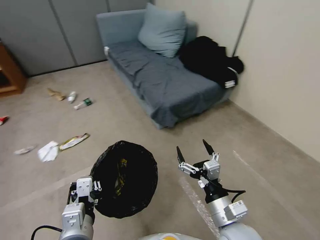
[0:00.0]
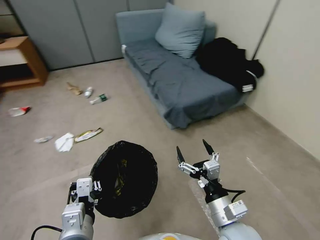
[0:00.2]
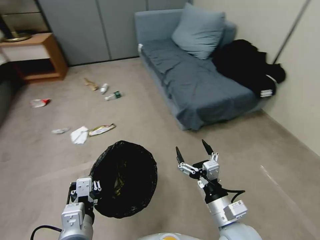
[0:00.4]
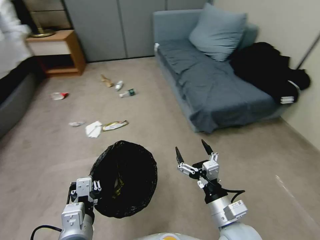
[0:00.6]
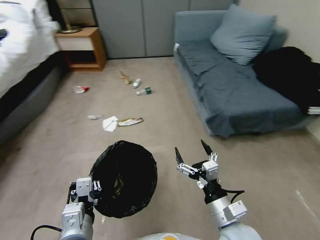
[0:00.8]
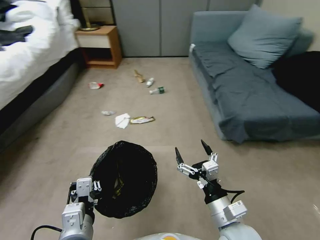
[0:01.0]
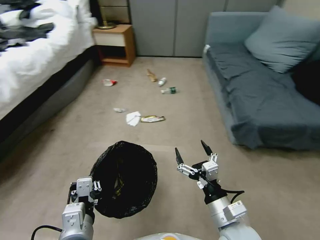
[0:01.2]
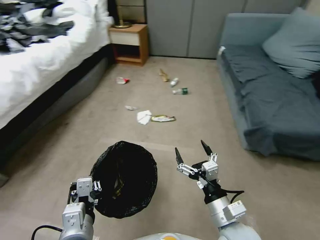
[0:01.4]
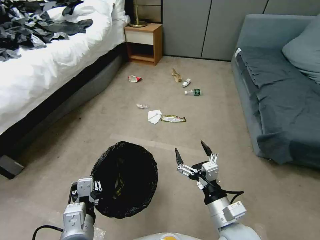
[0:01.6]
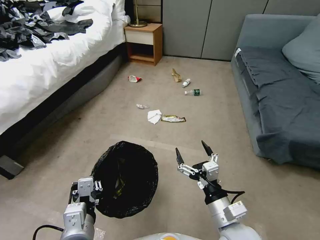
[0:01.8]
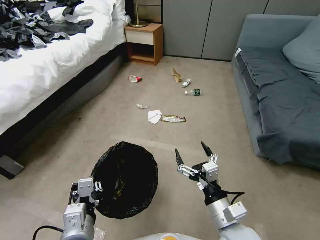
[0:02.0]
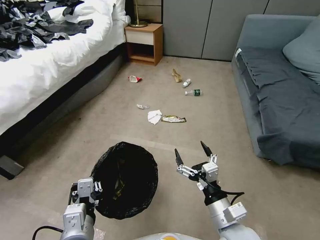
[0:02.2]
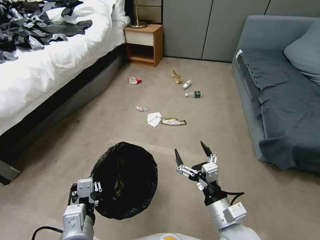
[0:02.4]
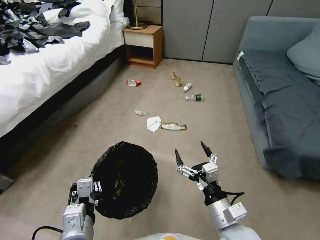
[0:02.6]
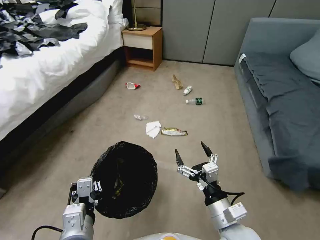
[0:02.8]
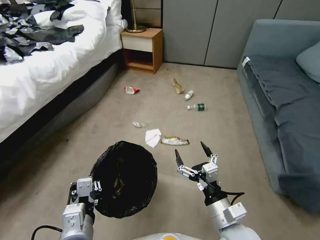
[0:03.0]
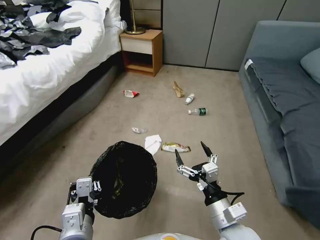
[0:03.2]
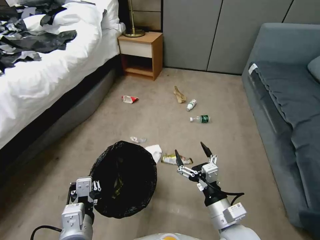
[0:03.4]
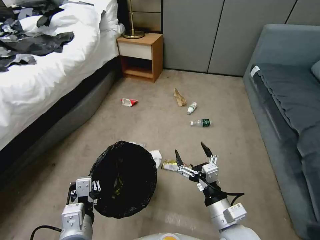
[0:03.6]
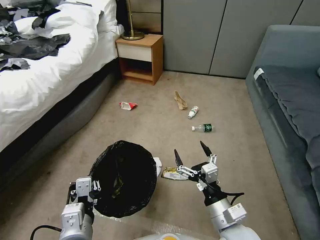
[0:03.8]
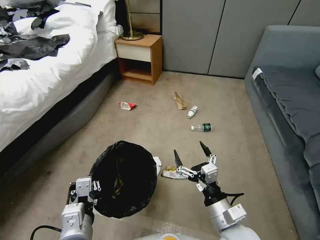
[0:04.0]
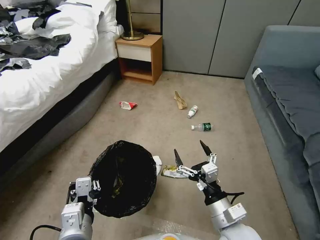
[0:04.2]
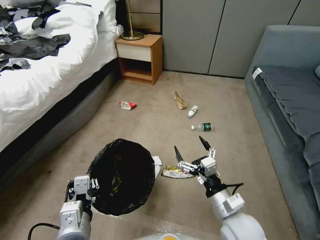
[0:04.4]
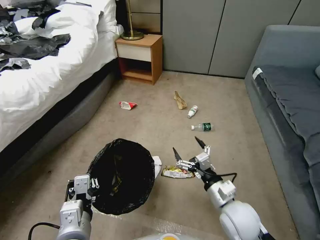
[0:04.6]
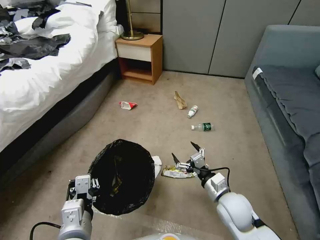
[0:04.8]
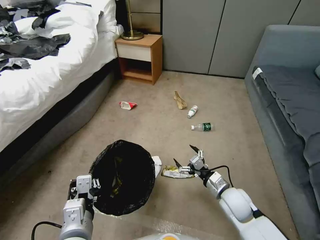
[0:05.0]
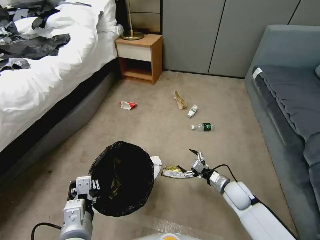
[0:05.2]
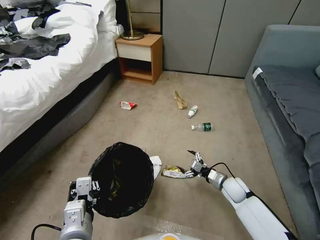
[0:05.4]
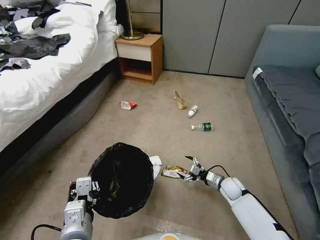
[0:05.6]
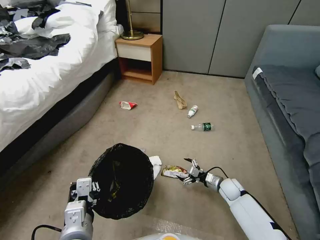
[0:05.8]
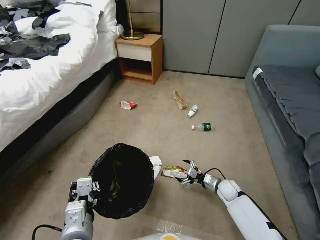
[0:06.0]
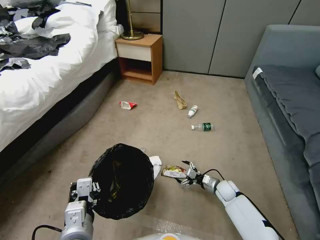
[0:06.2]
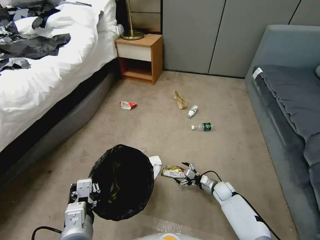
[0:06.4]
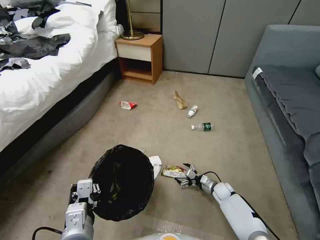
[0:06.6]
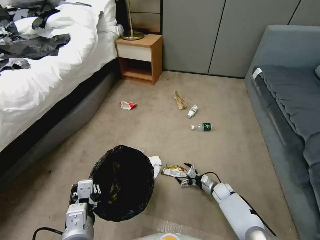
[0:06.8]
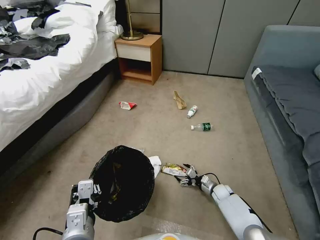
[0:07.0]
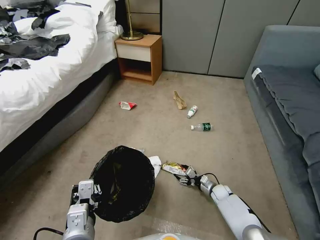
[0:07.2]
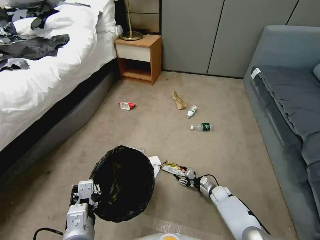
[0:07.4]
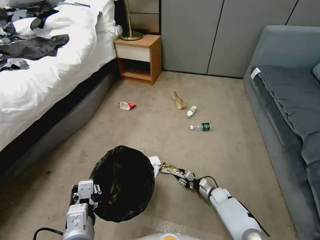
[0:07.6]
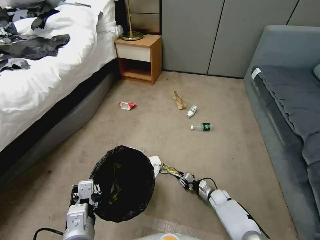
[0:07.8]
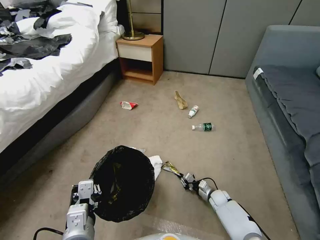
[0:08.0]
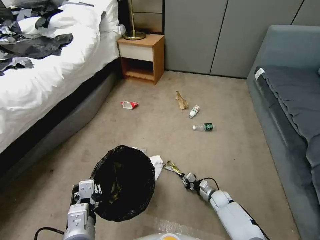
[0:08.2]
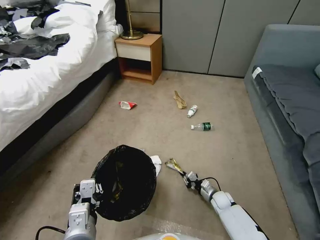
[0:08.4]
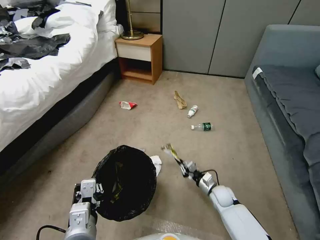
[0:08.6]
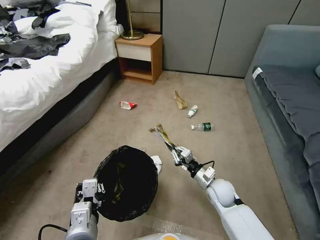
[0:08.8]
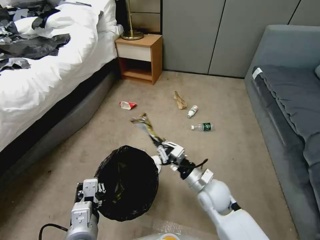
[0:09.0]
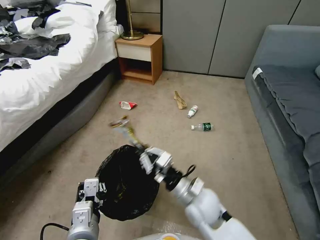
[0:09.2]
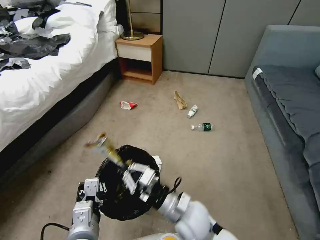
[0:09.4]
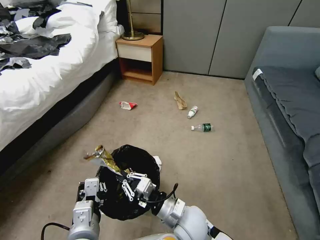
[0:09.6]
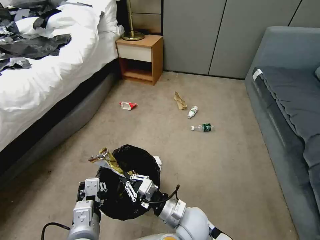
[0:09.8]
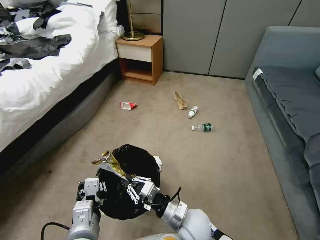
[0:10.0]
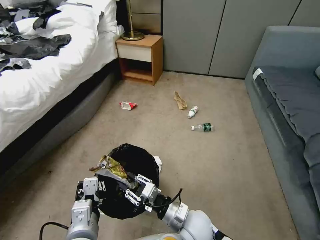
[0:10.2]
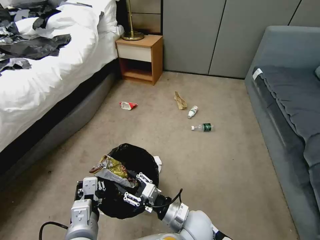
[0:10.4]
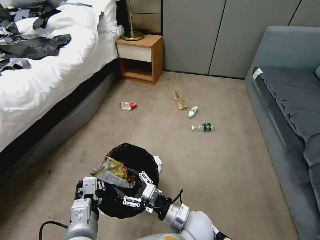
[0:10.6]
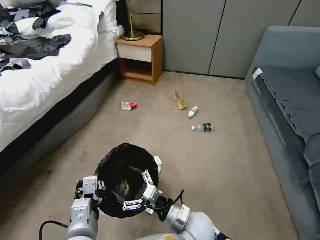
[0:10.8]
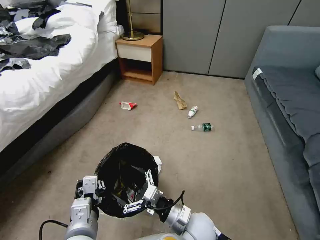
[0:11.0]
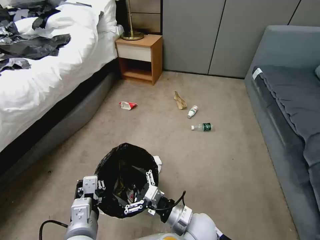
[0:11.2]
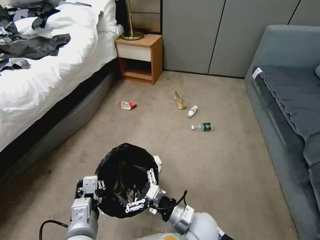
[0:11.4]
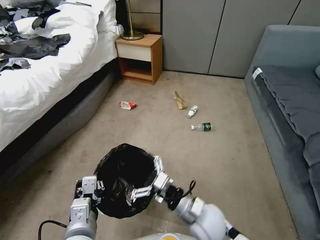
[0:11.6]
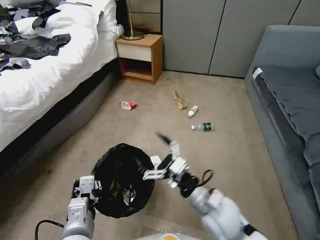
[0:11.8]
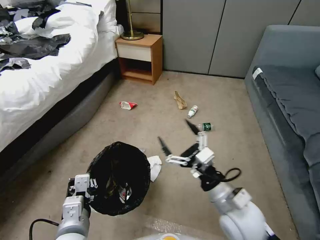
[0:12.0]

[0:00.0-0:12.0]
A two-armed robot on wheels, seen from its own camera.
Task of the whole recording: Pick up the trash bin, then pick up the garbage from the floor and place it into the trash bin.
0:04.4 to 0:06.0: The right gripper goes approximately 30 cm downward, forward and to the right.
0:06.0 to 0:07.6: The right gripper travels downward by some 10 cm, and closes.
0:07.6 to 0:09.0: The right gripper moves upward and to the left, approximately 30 cm, and closes its fingers.
0:09.0 to 0:10.4: The right gripper heads backward and to the left, covering about 10 cm, and opens.
0:10.4 to 0:12.0: The right gripper heads upward and to the right, covering roughly 15 cm, and opens.

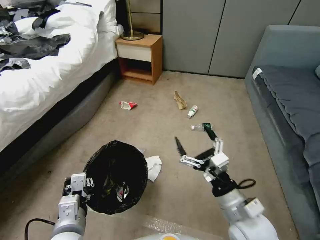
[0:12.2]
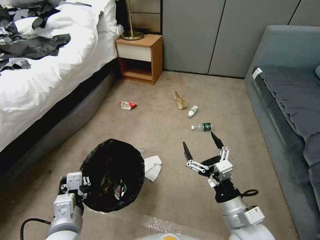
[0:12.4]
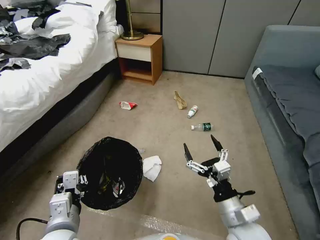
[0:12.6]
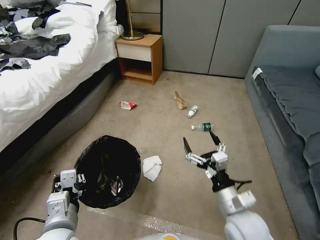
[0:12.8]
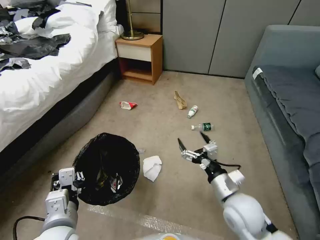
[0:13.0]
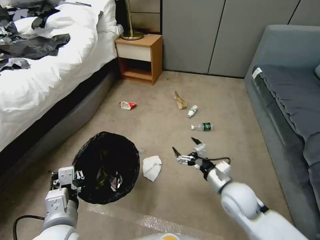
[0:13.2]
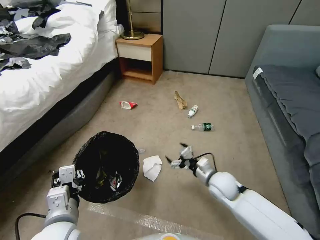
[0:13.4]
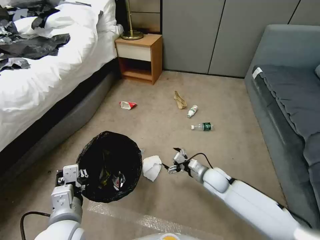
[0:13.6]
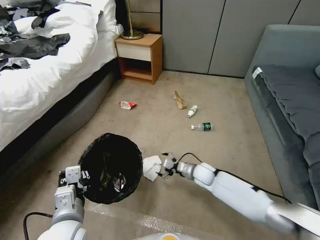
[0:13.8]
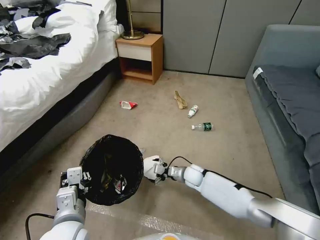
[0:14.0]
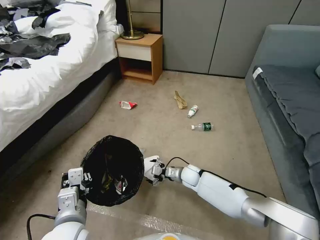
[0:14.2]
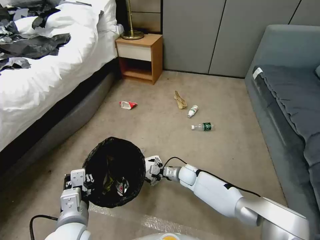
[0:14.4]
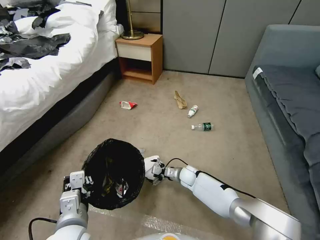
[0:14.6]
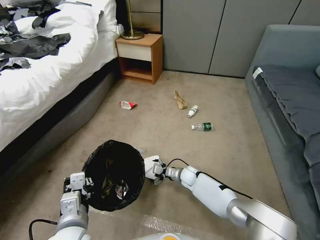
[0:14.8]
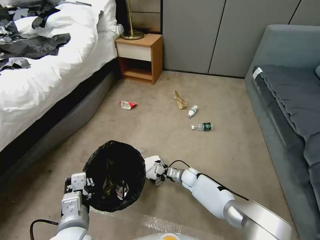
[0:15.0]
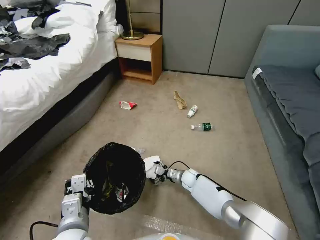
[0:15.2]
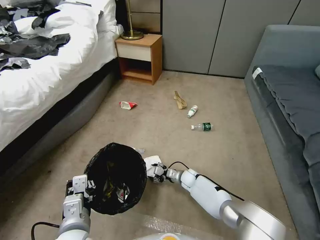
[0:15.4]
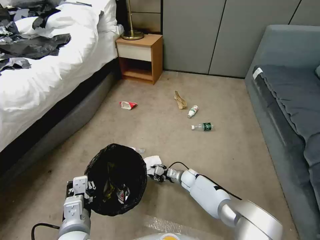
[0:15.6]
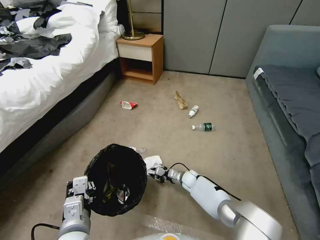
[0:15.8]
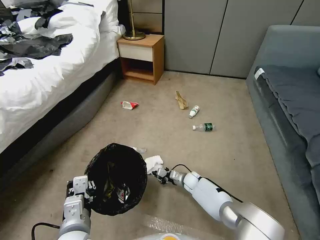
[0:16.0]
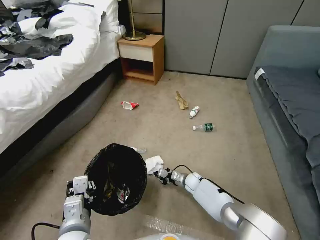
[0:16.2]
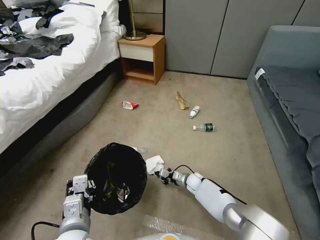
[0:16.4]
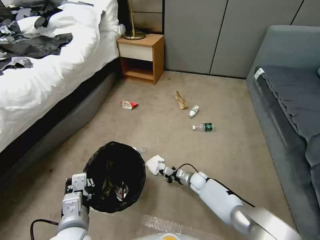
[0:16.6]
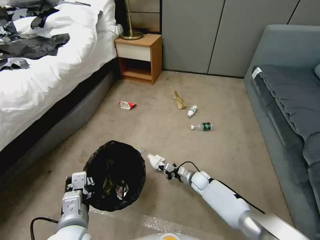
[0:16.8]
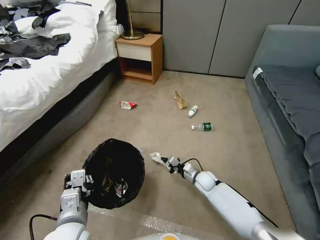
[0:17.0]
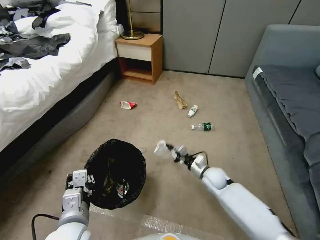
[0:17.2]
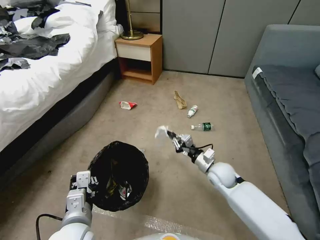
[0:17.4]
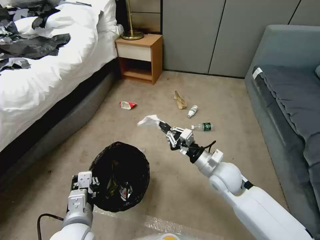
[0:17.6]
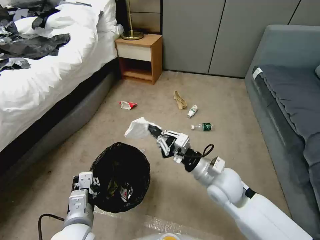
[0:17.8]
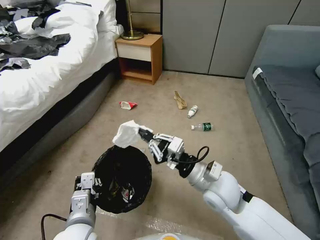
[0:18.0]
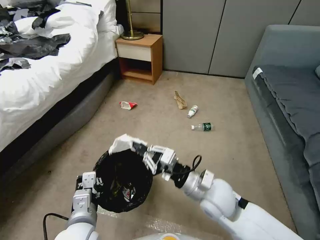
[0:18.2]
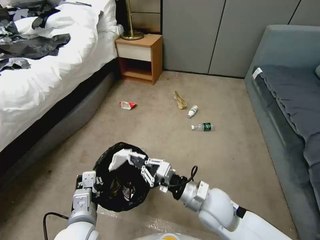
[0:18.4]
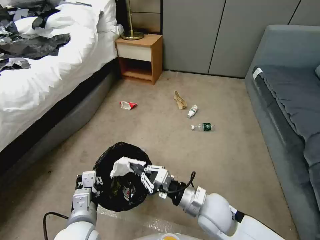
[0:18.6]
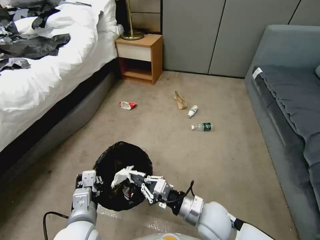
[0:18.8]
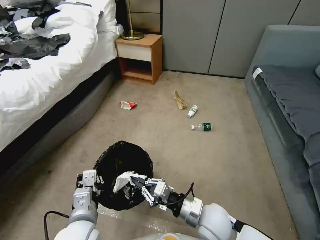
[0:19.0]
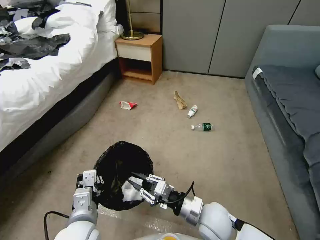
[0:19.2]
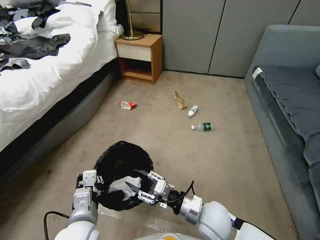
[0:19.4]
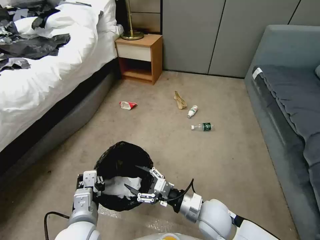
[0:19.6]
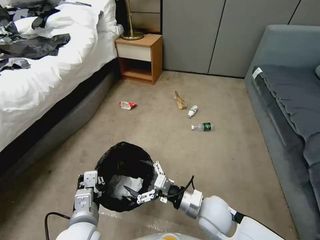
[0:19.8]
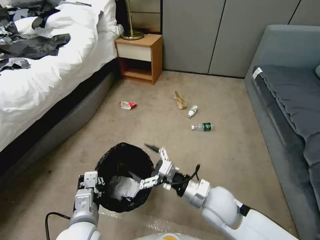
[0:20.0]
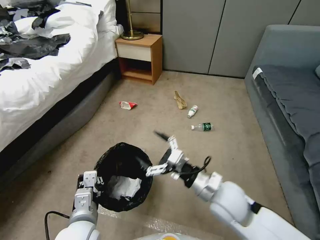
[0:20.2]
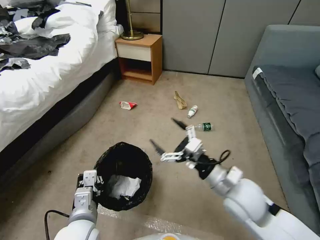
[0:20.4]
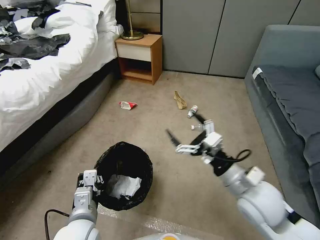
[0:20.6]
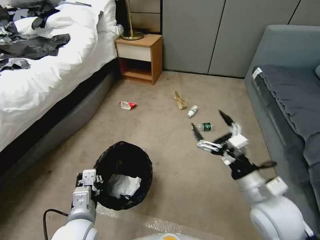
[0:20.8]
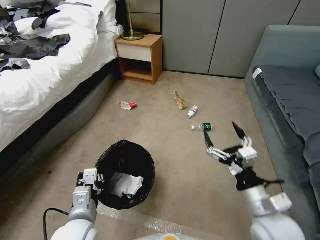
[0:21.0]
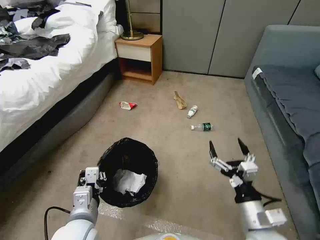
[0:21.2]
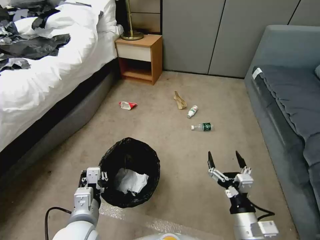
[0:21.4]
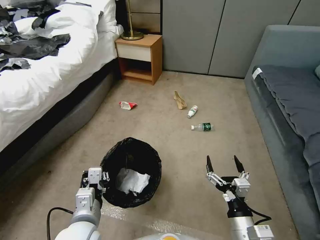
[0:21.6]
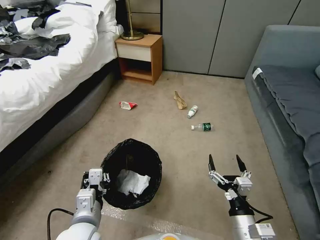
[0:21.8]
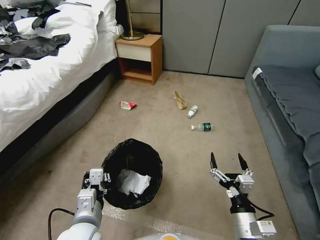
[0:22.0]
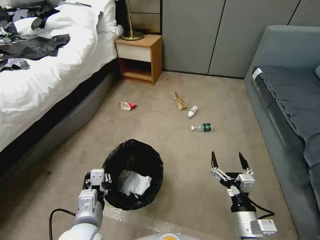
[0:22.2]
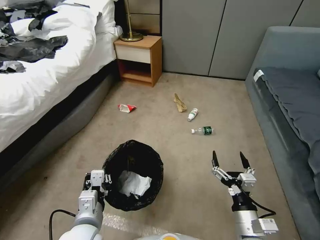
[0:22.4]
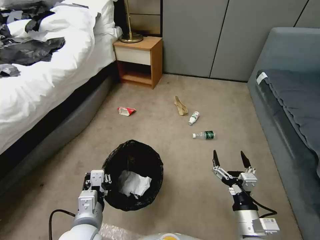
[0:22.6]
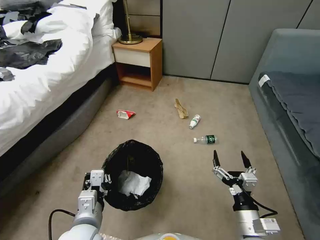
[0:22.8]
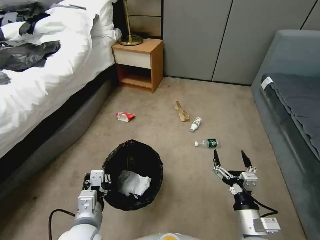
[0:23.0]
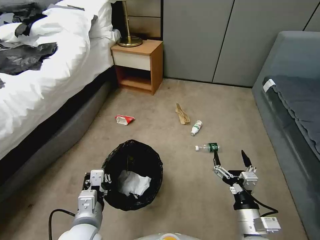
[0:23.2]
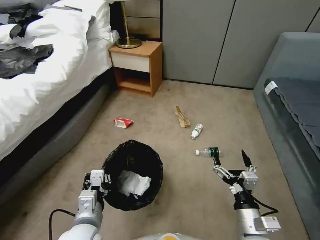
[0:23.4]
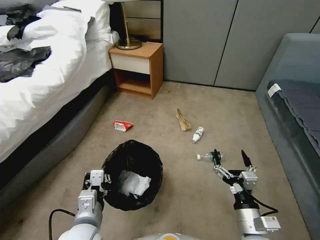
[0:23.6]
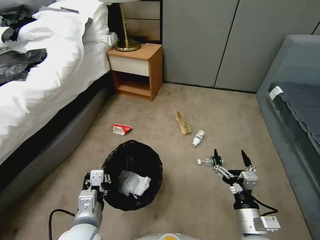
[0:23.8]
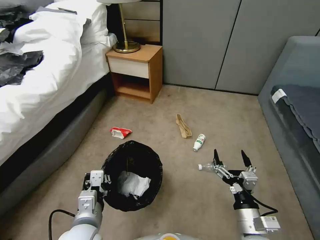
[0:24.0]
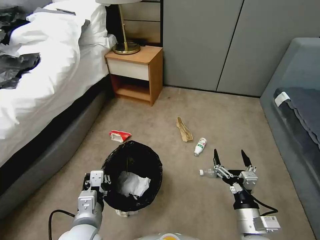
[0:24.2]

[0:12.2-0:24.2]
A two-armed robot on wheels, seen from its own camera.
Task of the whole recording: Pick up the trash bin, then pick up the garbage from the floor and place it into the trash bin.
0:12.2 to 0:13.8: The right gripper shifts roughly 30 cm forward and downward.
0:13.8 to 0:15.2: The right gripper shifts roughly 10 cm downward and to the left.
0:15.2 to 0:16.6: The right gripper closes its fingers.
0:16.6 to 0:18.2: The right gripper is displaced upward and backward by about 35 cm.
0:18.2 to 0:19.8: The right gripper travels downward by about 5 cm, and opens.
0:19.8 to 0:21.2: The right gripper moves to the right and backward, approximately 15 cm, and goes upward and returns, roughly 15 cm each way.
